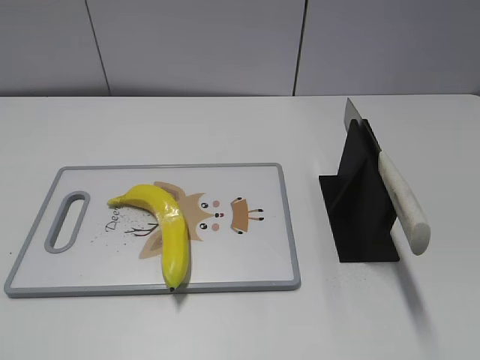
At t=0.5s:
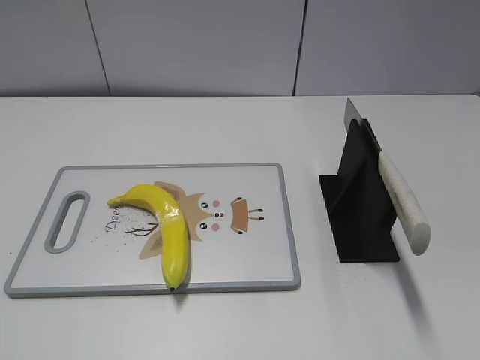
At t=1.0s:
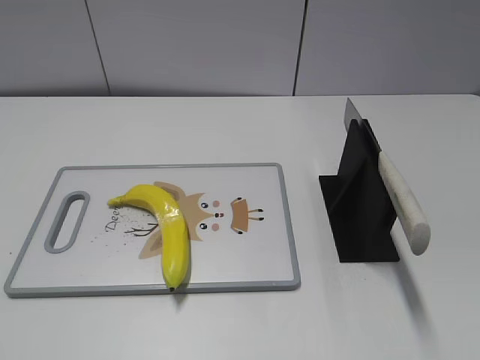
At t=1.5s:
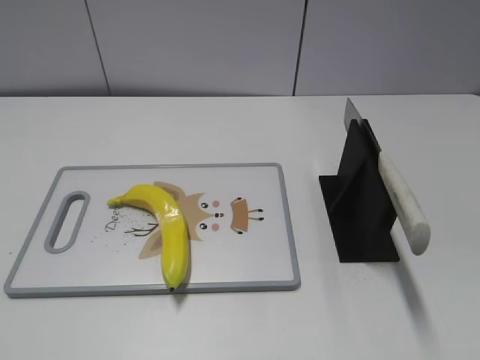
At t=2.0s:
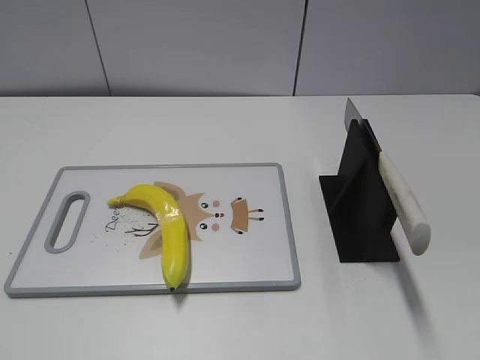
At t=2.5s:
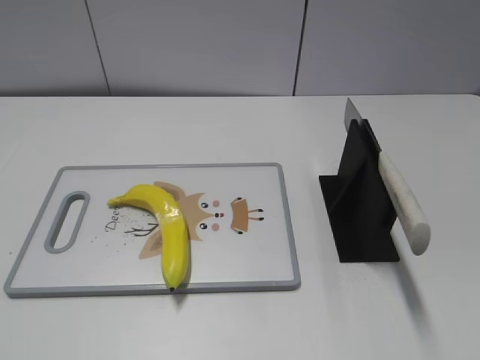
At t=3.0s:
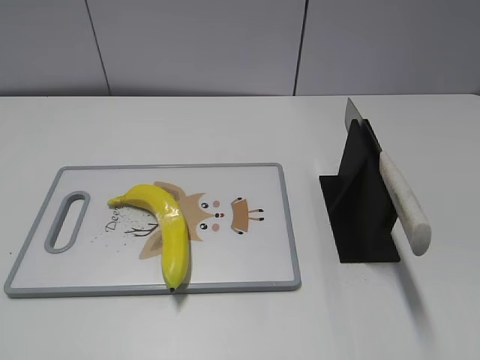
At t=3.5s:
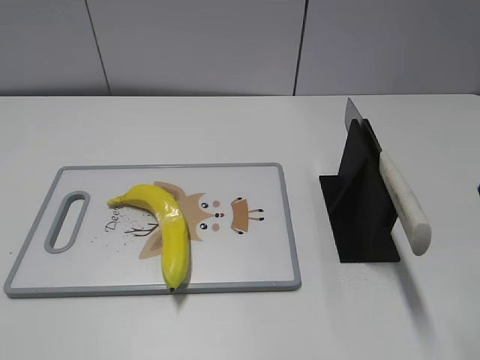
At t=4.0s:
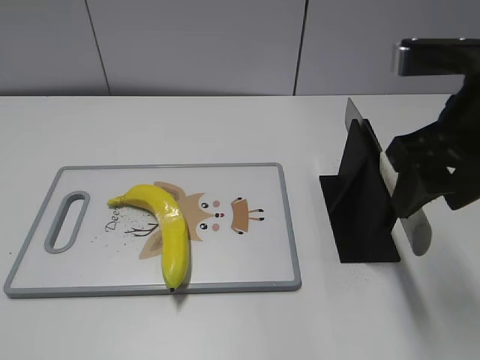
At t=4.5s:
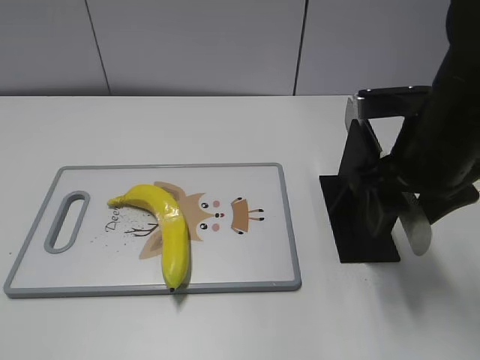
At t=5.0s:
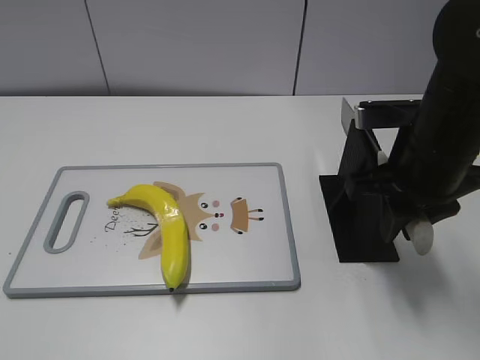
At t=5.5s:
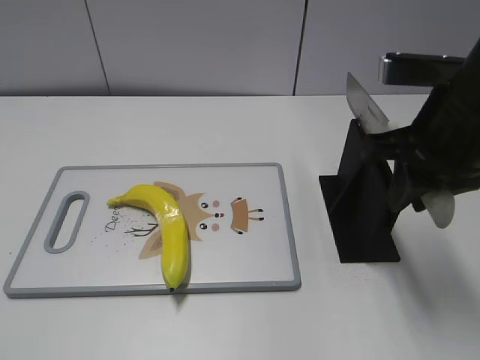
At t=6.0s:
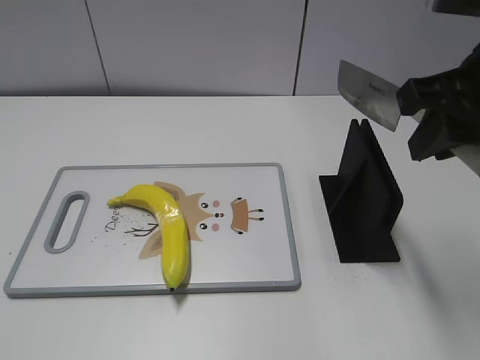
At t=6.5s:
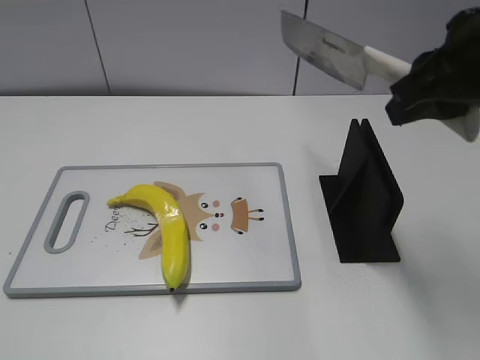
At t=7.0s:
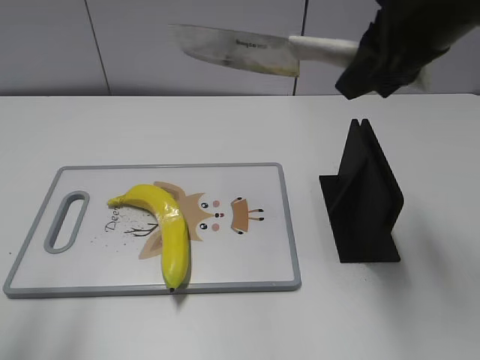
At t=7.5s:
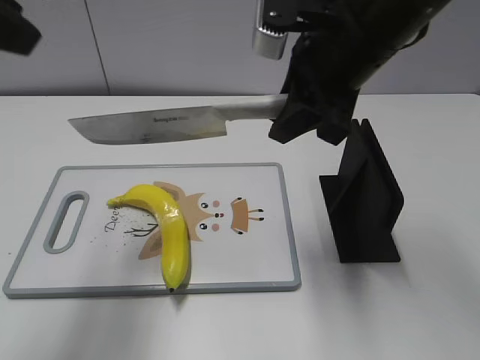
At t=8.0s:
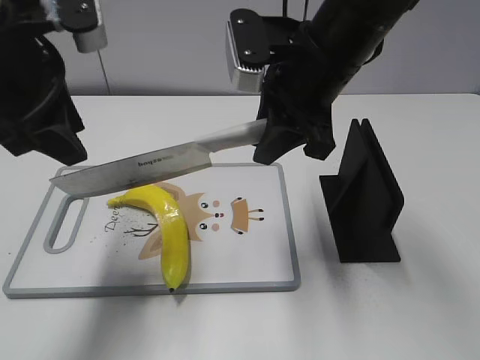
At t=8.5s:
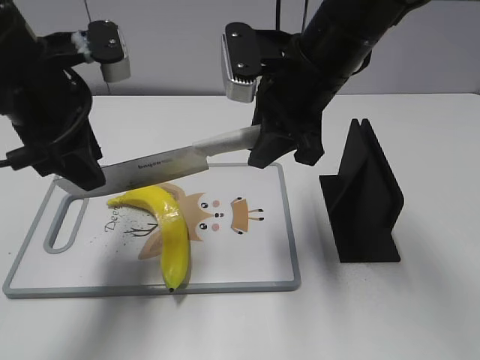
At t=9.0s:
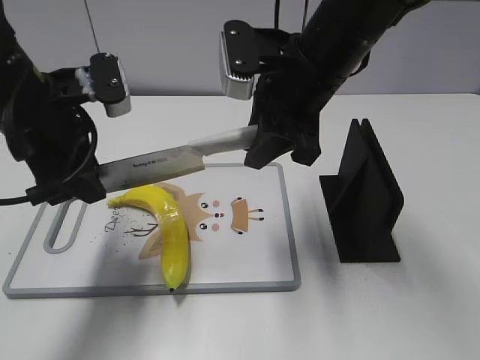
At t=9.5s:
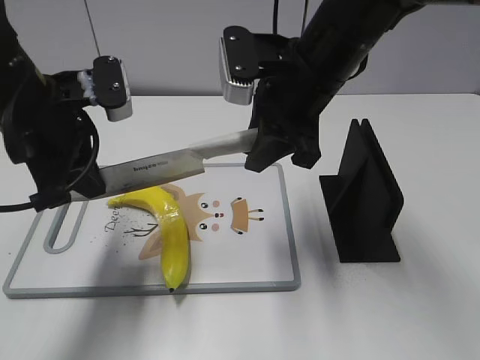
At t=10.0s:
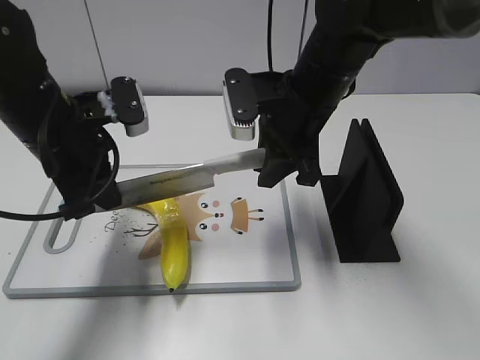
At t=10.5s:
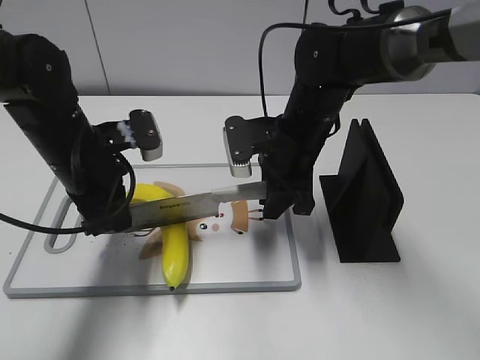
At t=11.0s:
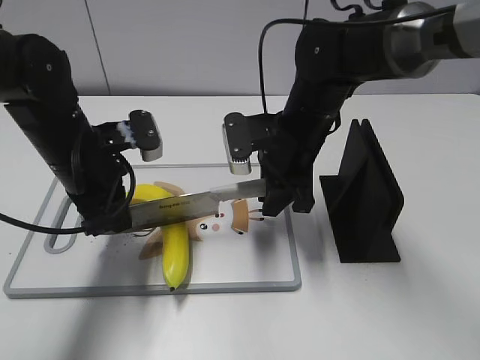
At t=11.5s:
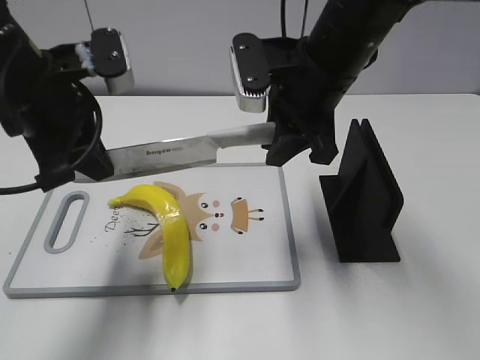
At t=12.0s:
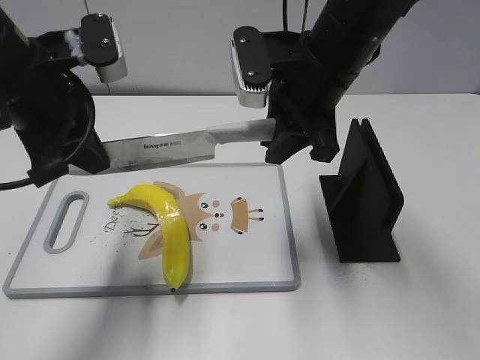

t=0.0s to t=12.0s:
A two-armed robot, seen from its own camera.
Task of the whole recording: cut plastic banana.
Step, t=0.0s to t=6.0s: Grab the knife handle with your right hand.
Step, t=6.5s to t=11.5s: Lift the knife with your right hand.
t=2.0s to t=4.0s: The right gripper shifts roughly 25 cm forward and to the left.
t=4.0s to t=6.0s: The right gripper travels downward and back again, approximately 10 cm each way, and closes.
t=6.0s to t=8.0s: The right gripper is displaced to the left and forward by approximately 15 cm, while the left gripper travels forward and to the right by approximately 30 cm.
t=8.0s to t=10.0s: The right gripper shifts roughly 5 cm downward. Meanwhile the left gripper goes roughly 10 cm downward, and closes up.
t=10.0s to t=12.0s: The left gripper goes some 5 cm upward; the right gripper changes place by roughly 5 cm.

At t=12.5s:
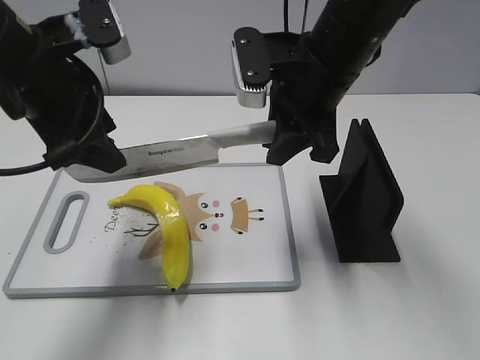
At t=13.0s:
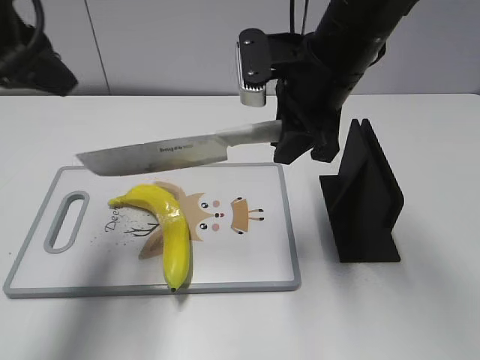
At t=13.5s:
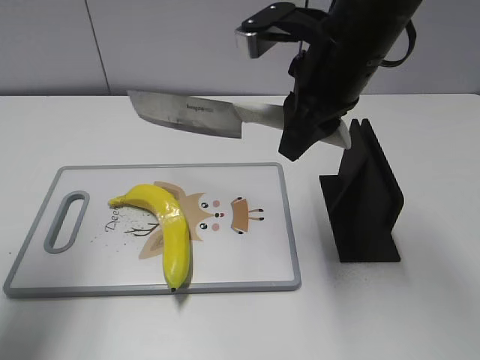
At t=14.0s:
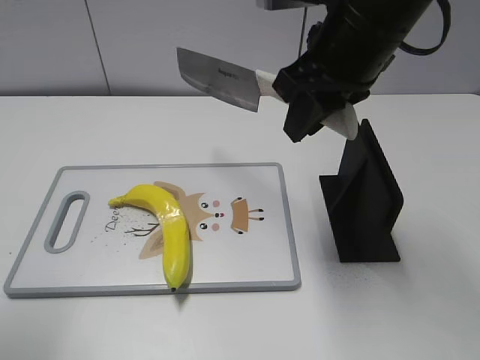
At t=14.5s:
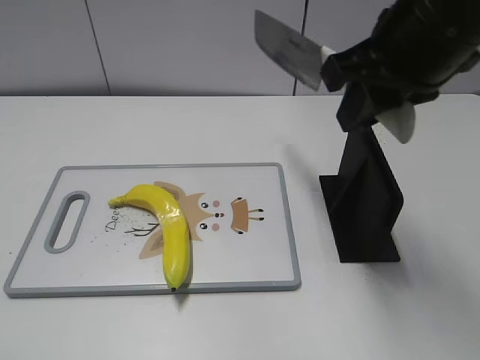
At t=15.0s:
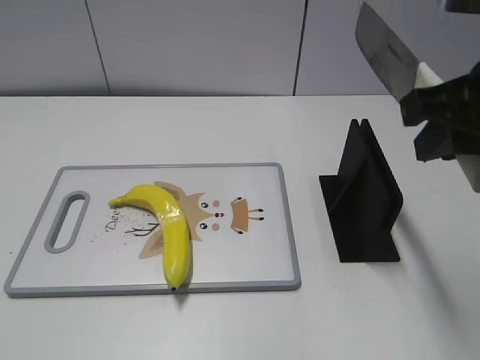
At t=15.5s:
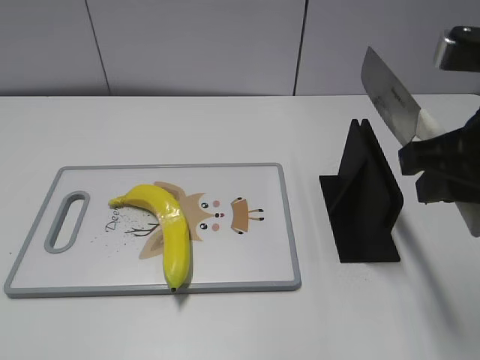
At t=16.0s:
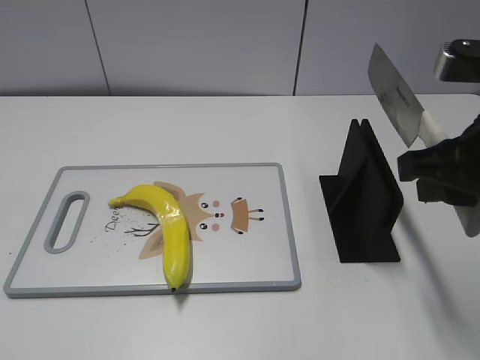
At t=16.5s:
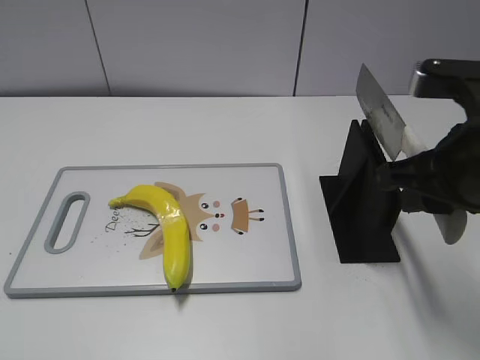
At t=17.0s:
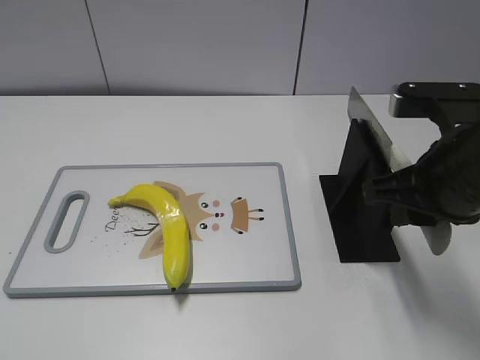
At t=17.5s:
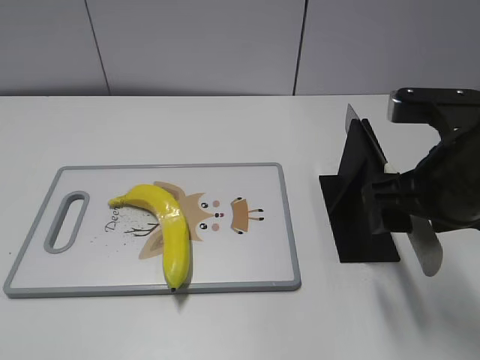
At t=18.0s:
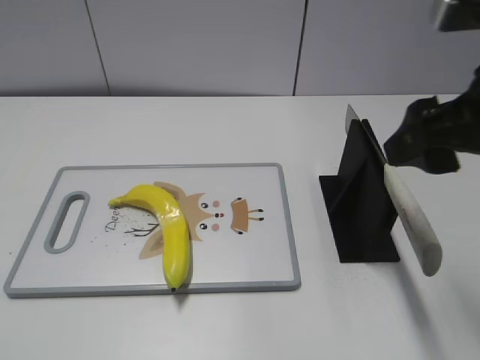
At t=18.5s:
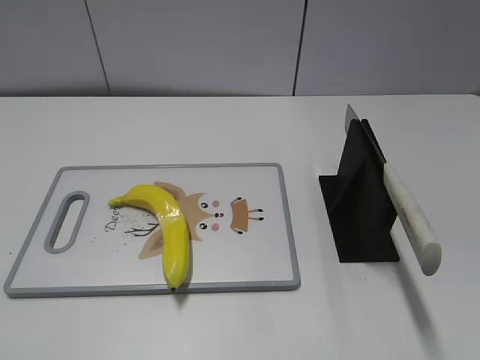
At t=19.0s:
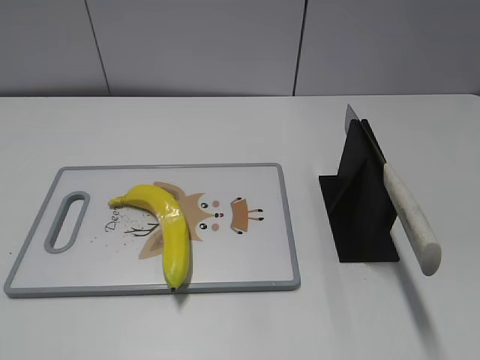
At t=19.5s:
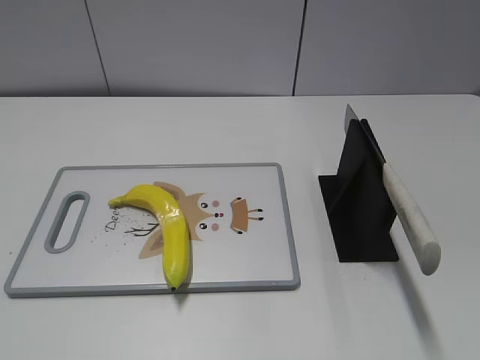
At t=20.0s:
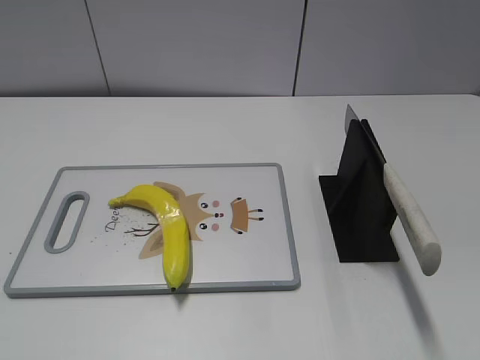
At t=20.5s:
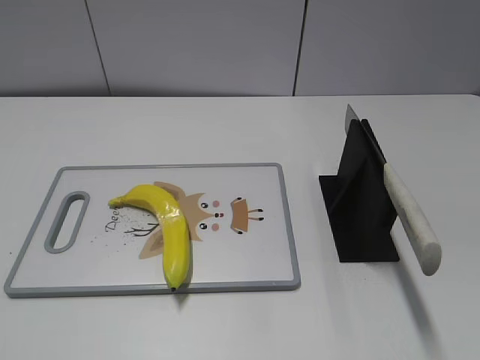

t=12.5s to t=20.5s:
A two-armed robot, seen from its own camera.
Task of the whole recording: cut plastic banana.
Step, t=12.5s to t=13.5s: Cut the banana with your right hand.
Step, t=14.0s to t=15.0s: Lift the knife with your right hand.
Step, t=15.5s to t=20.5s: Place the knife on the storage rack with your right hand.
t=12.5s to t=14.5s: The right gripper shifts approximately 10 cm upward, backward and to the right. Meanwhile the left gripper is displaced backward and to the left by about 25 cm.
t=14.5s to t=16.5s: The right gripper moves downward, backward and to the right, about 10 cm; the left gripper heads backward, covering roughly 5 cm.
t=16.5s to t=18.5s: The right gripper is displaced backward, to the right and upward by approximately 15 cm, and opens its fingers.
